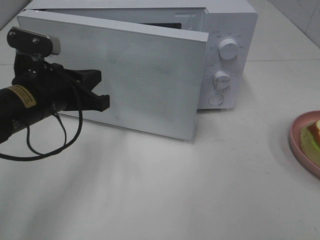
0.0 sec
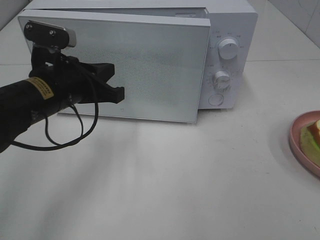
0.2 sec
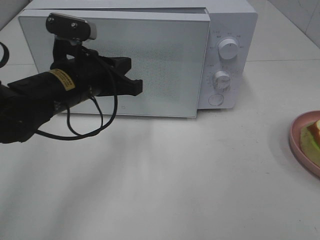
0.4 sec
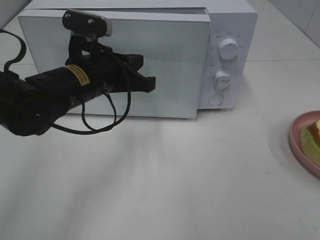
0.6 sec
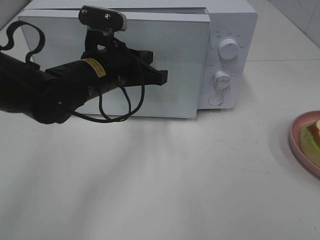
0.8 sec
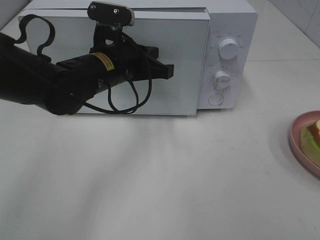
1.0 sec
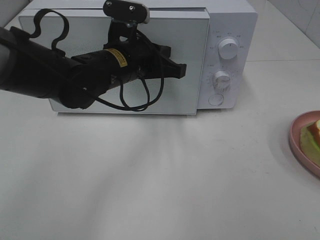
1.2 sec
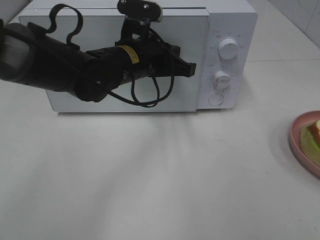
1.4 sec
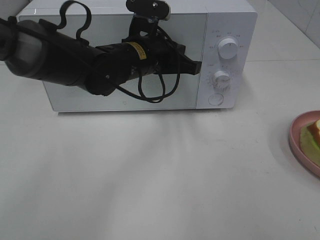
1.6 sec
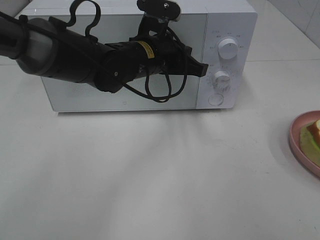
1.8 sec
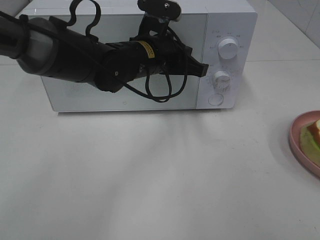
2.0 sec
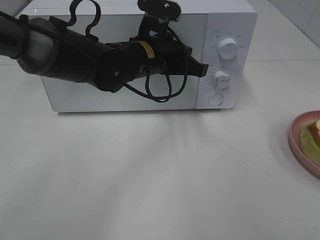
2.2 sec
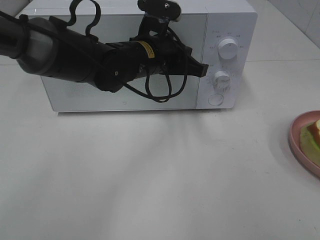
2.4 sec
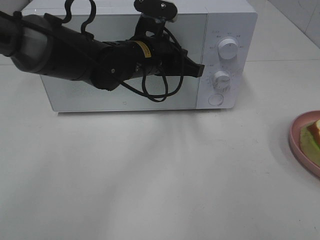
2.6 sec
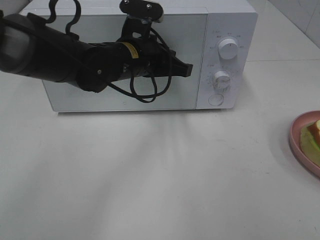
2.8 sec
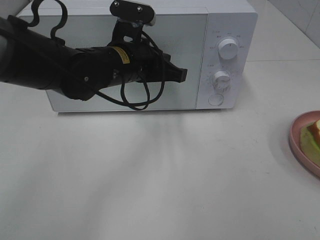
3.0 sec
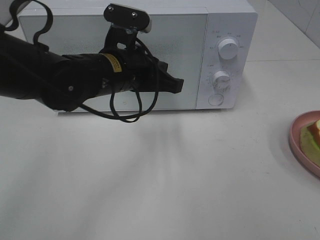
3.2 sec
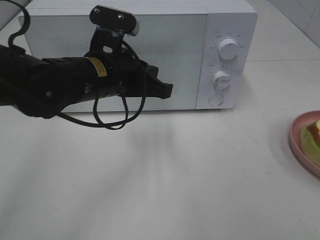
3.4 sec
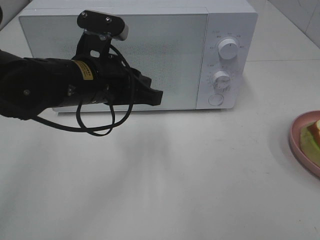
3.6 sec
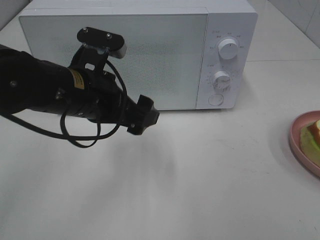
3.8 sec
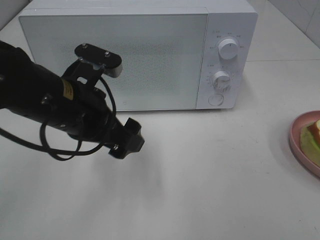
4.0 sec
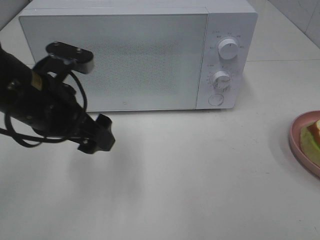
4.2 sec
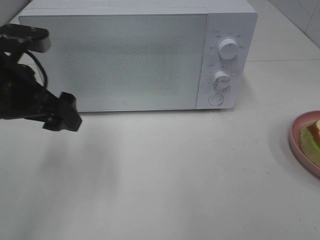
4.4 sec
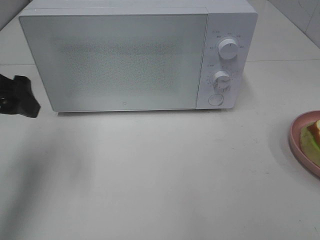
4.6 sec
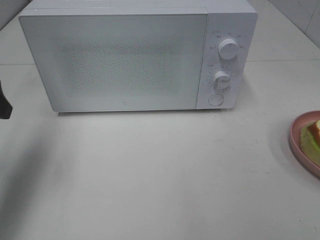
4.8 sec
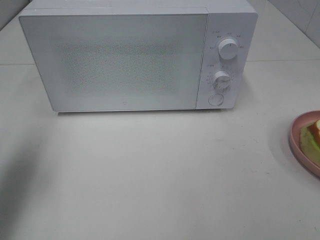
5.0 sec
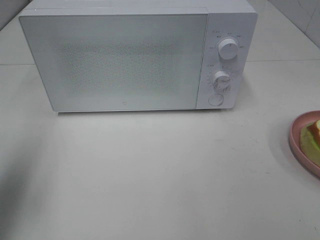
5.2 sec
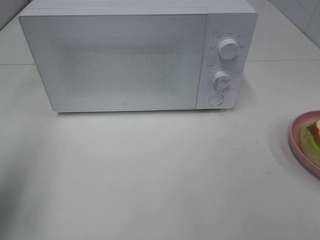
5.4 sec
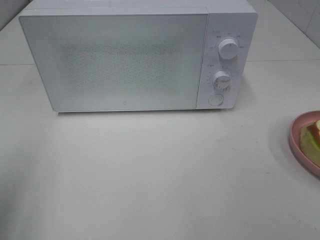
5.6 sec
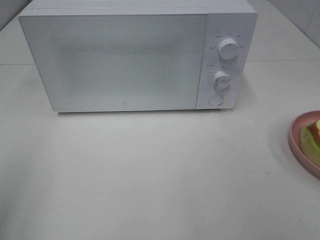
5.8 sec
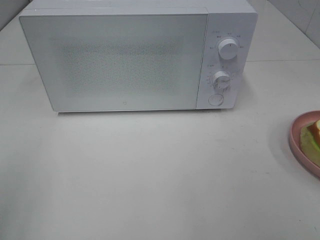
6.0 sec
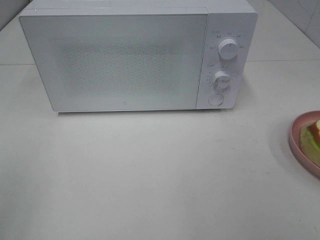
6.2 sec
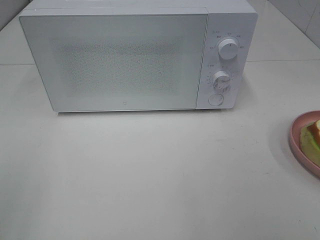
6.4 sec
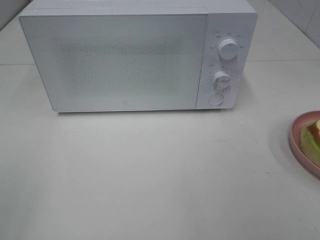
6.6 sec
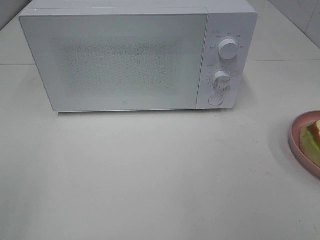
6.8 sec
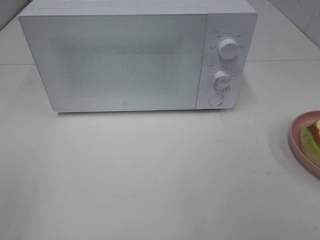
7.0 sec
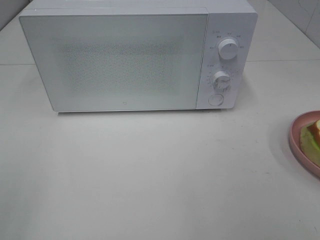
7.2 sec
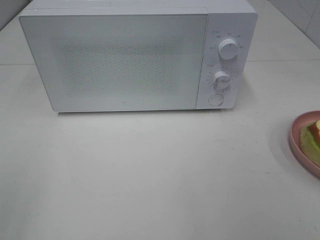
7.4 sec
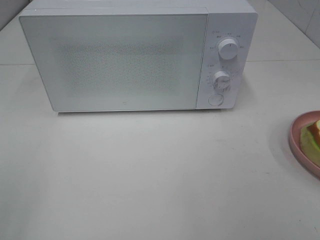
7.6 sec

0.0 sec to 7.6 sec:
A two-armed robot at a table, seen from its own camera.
Task of the whole recording: Heat Sandwich.
Step, 0.0 sec to 2.8 sec: Left hand: close the microwave door.
0.0 sec to 1.6 sec: The left gripper is displaced to the right and forward by approximately 15 cm.
1.6 sec to 3.0 sec: The grippers move only a little.
3.0 sec to 4.6 sec: The left gripper shifts roughly 20 cm to the left, and opens up.
4.6 sec to 6.0 sec: The left gripper moves backward, roughly 20 cm.

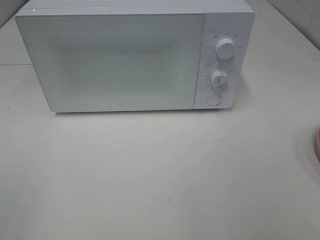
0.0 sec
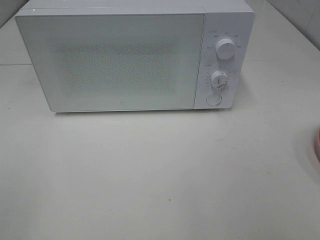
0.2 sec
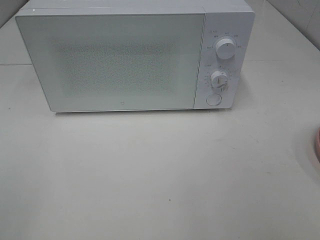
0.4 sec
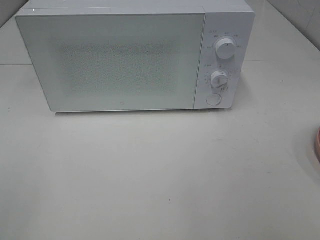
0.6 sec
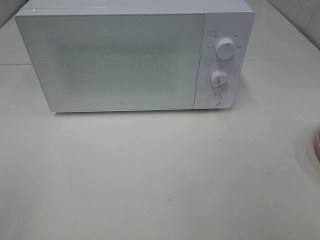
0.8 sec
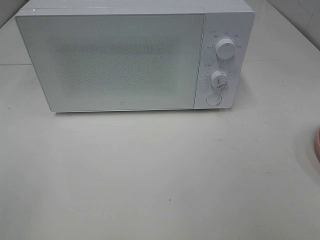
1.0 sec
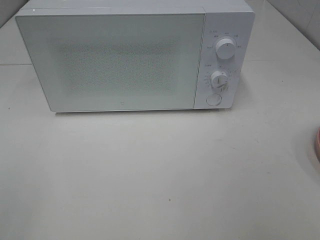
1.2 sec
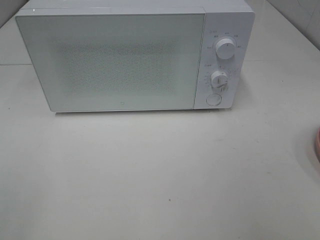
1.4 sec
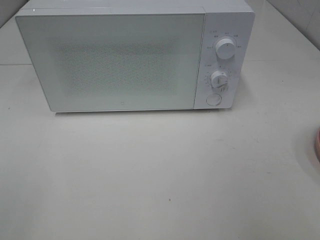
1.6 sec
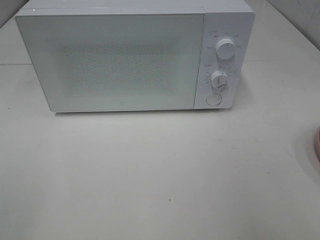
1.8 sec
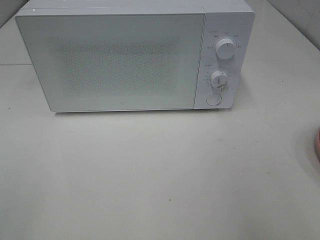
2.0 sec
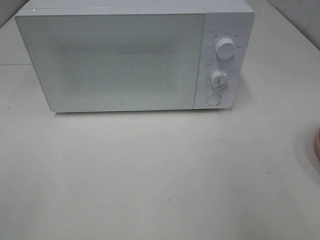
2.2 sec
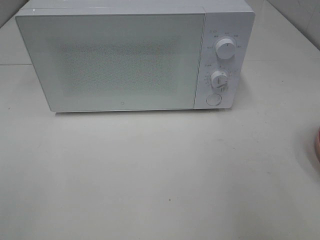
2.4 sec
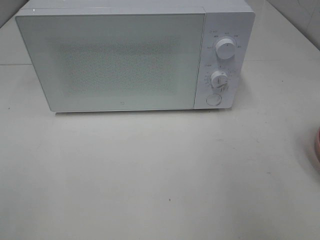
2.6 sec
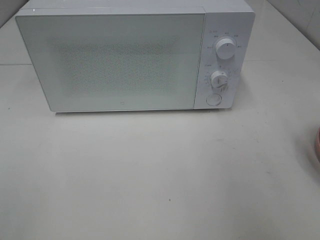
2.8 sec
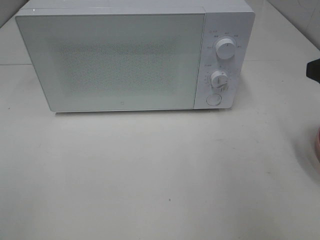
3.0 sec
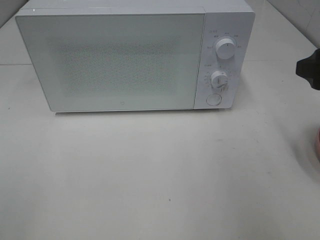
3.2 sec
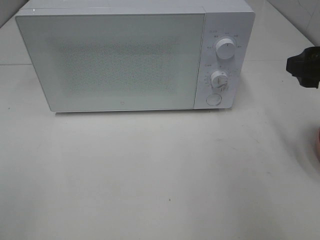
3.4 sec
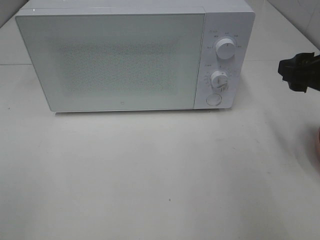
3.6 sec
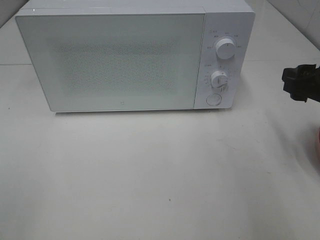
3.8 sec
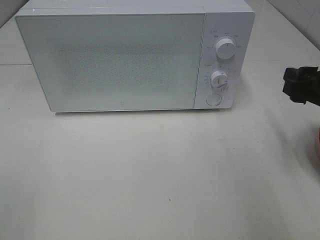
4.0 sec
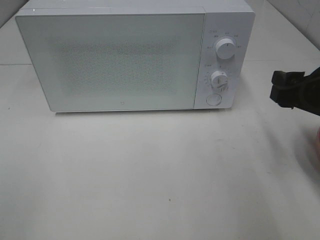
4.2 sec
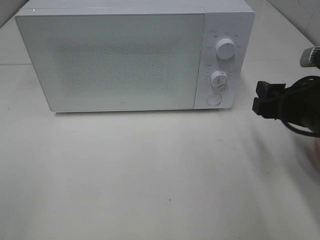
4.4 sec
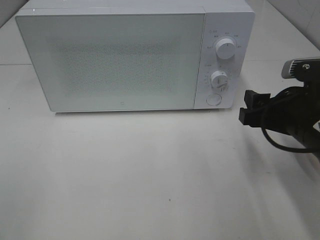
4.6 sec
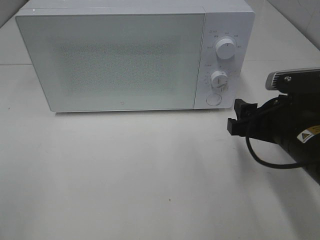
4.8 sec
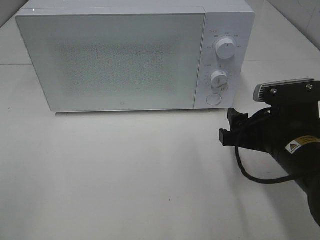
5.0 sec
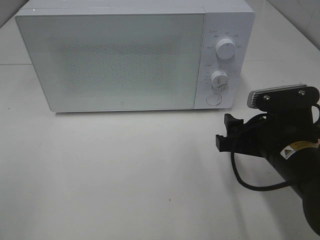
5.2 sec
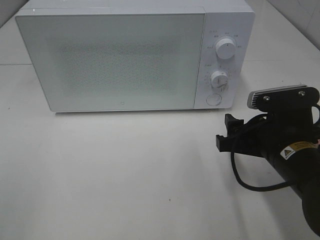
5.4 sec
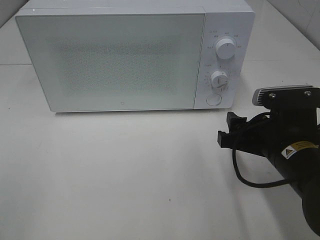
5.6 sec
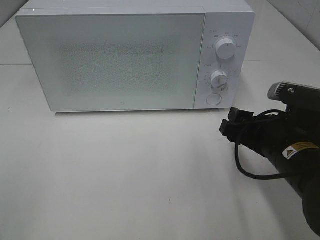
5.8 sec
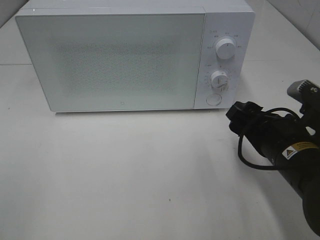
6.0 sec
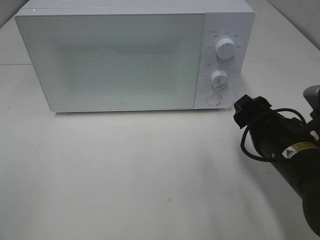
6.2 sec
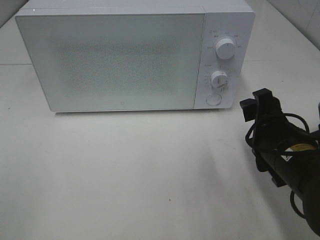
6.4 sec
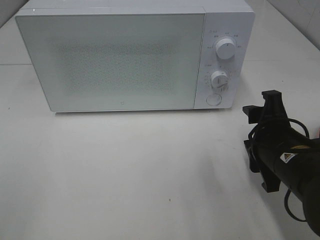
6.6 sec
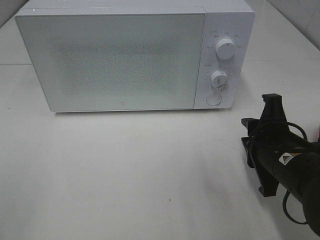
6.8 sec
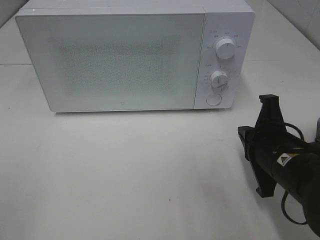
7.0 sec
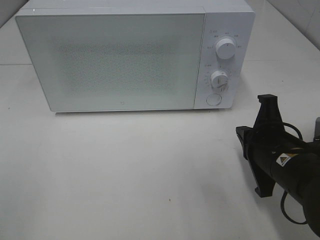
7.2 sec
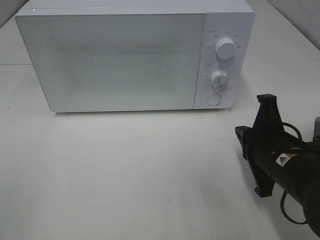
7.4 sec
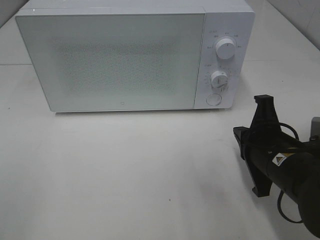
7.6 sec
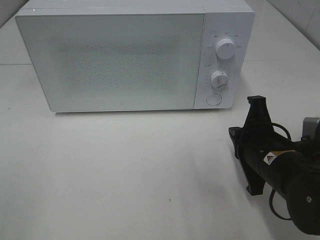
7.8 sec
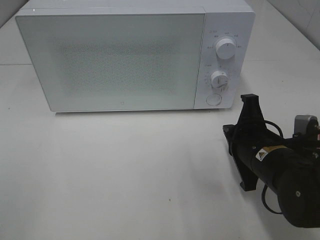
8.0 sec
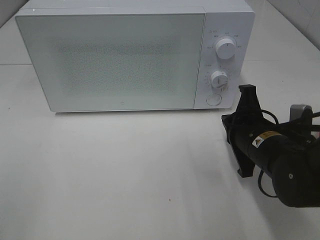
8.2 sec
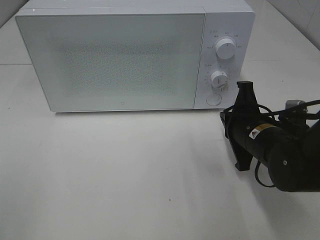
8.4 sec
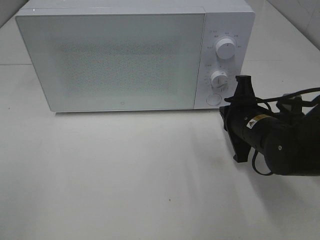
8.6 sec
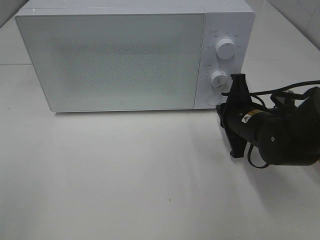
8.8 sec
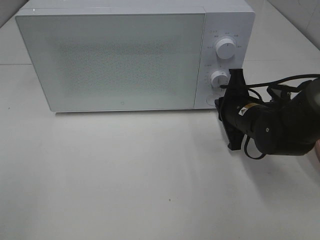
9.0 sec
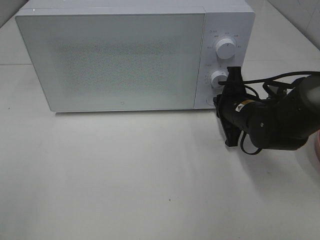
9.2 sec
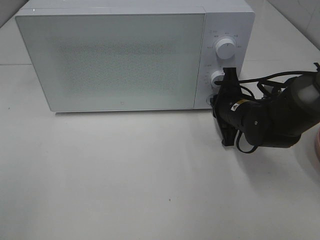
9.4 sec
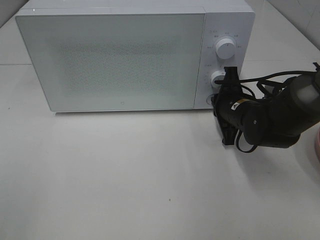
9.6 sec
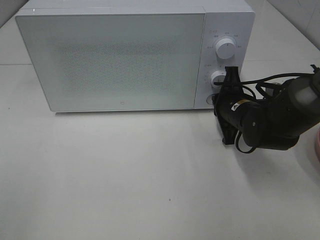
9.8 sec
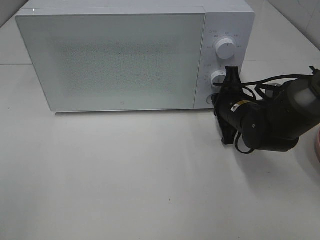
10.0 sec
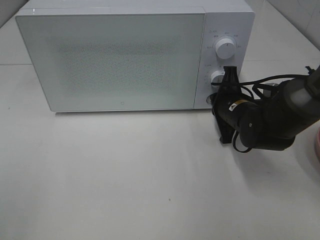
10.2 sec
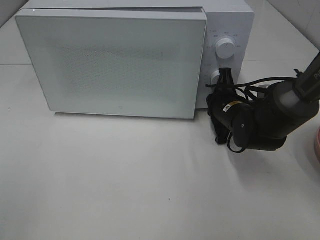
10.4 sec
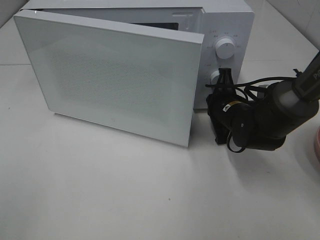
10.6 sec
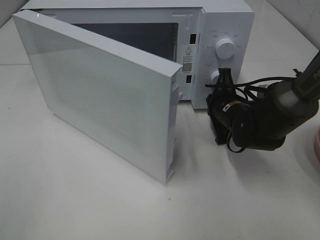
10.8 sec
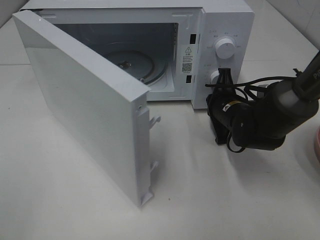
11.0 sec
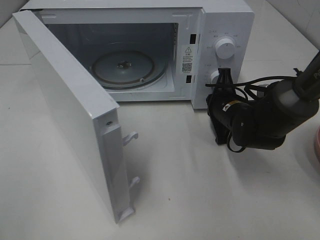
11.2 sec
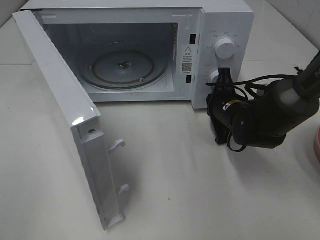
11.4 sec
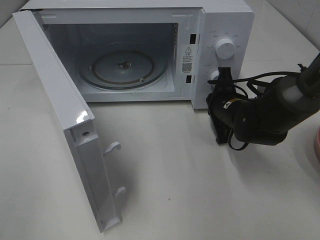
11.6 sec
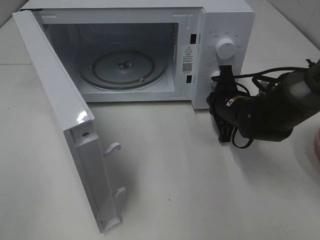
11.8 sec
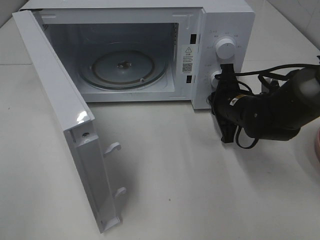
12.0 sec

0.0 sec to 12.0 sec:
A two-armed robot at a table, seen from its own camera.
Task of the whole recording: Heat Sandwich.
1.6 sec to 3.0 sec: The right gripper heads forward, covering approximately 15 cm.
3.0 sec to 4.4 sec: The right gripper is displaced downward by approximately 10 cm.
4.4 sec to 6.0 sec: The right gripper changes place by about 5 cm.
6.0 sec to 7.6 sec: The right gripper closes its fingers.
7.6 sec to 9.0 sec: The right gripper travels forward by some 10 cm.
9.0 sec to 10.4 sec: The grippers move only a little.

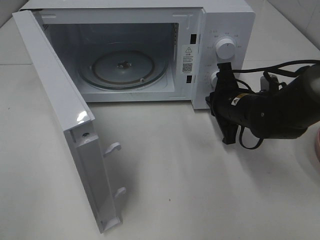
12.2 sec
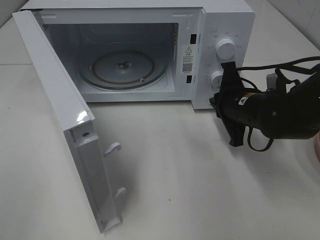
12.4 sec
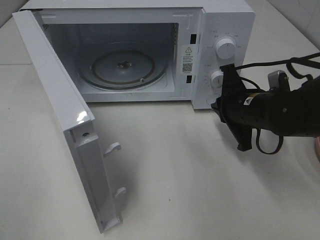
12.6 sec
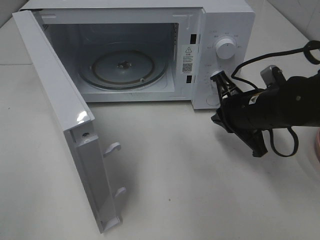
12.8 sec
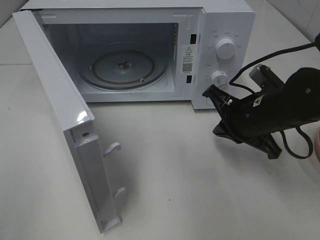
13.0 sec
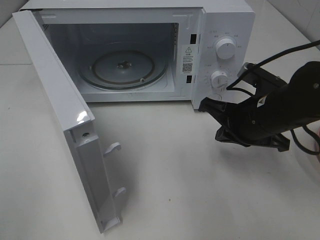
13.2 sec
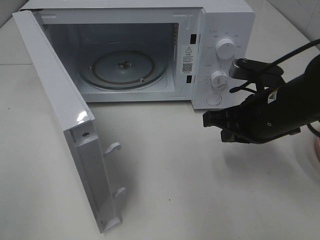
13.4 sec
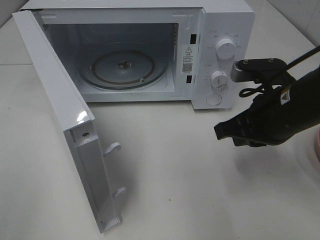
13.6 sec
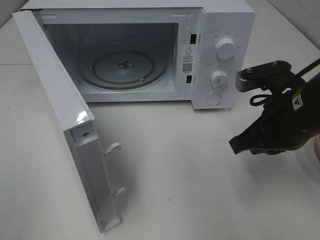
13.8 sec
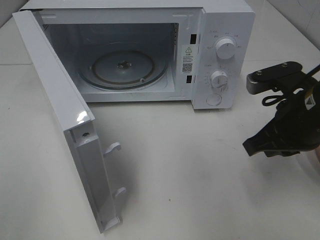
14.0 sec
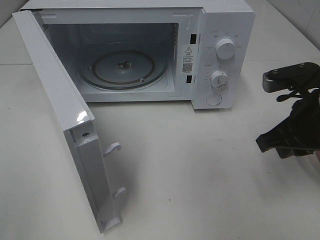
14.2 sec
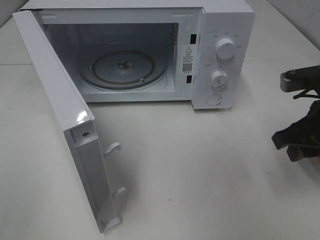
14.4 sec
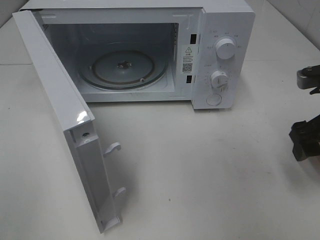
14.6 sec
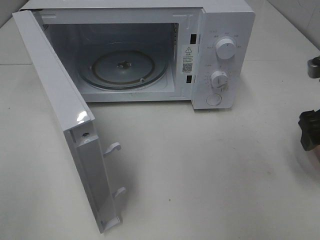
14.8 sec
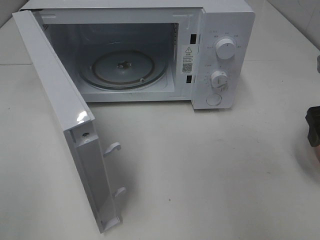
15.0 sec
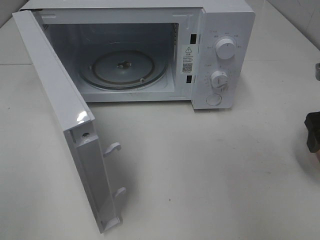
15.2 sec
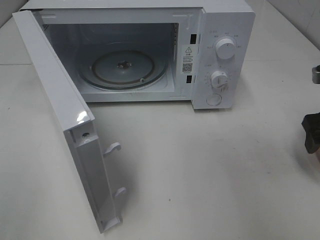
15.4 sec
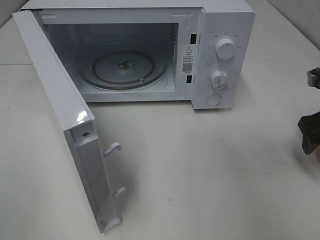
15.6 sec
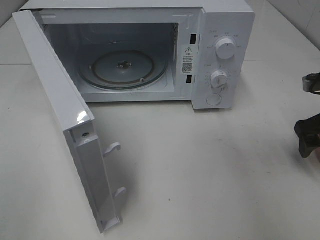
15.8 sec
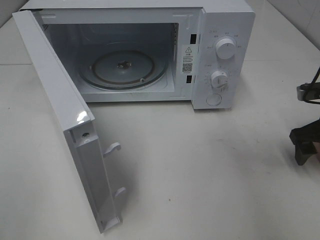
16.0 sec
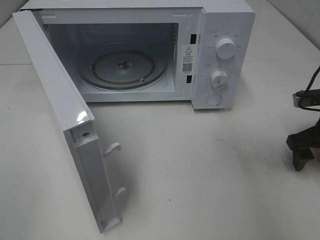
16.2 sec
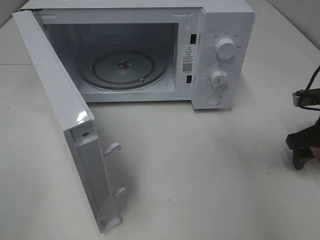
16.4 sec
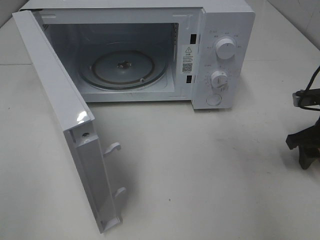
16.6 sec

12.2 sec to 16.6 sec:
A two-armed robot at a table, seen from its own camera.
Task of the whole recording: Heat Sandwich.
12.2 sec to 13.6 sec: The right gripper heads backward and upward, covering about 10 cm.
13.6 sec to 15.2 sec: The right gripper is displaced to the right by approximately 15 cm, and opens.
15.2 sec to 16.6 sec: The right gripper heads downward, covering roughly 5 cm.
